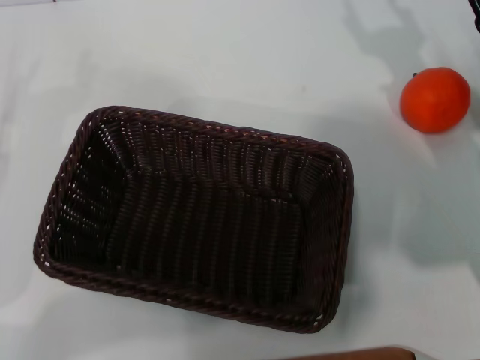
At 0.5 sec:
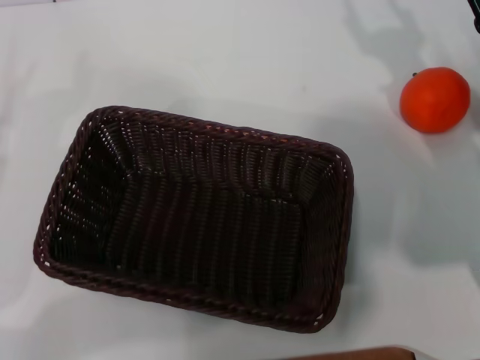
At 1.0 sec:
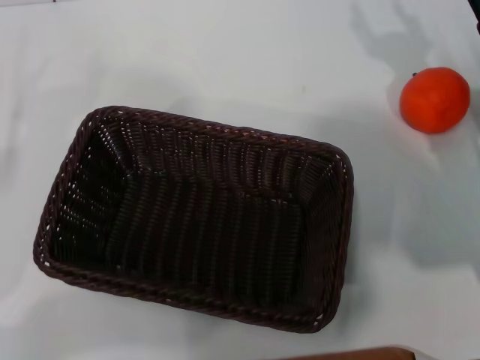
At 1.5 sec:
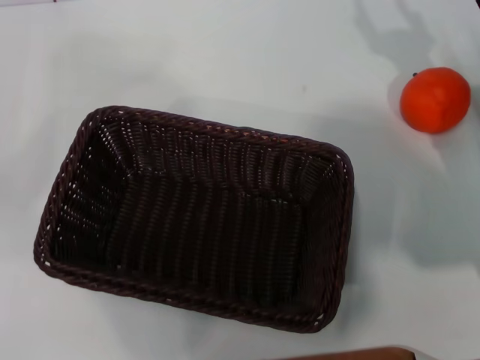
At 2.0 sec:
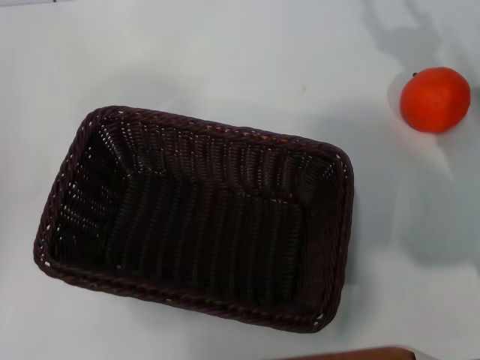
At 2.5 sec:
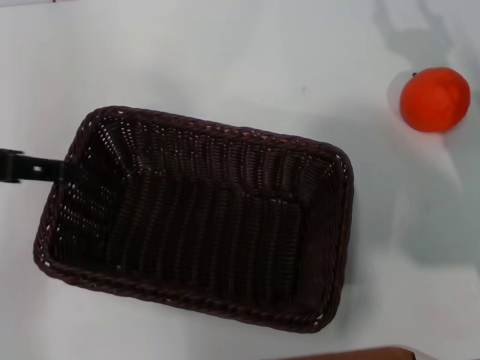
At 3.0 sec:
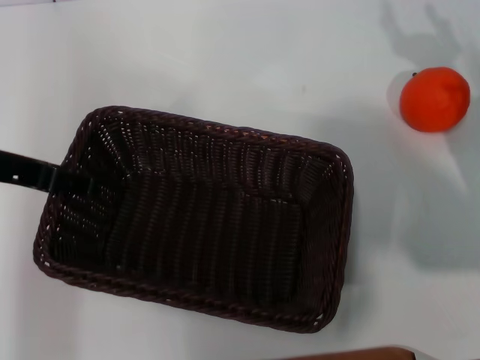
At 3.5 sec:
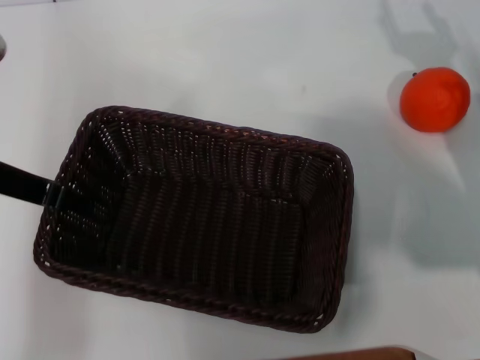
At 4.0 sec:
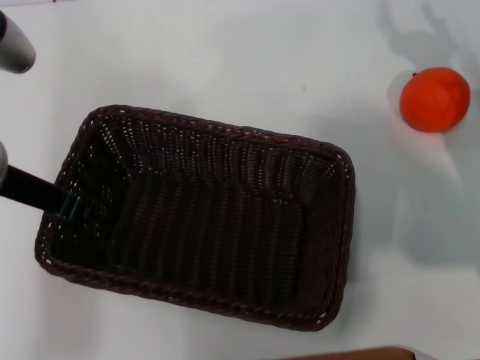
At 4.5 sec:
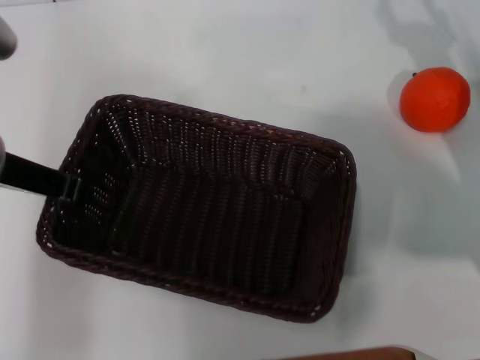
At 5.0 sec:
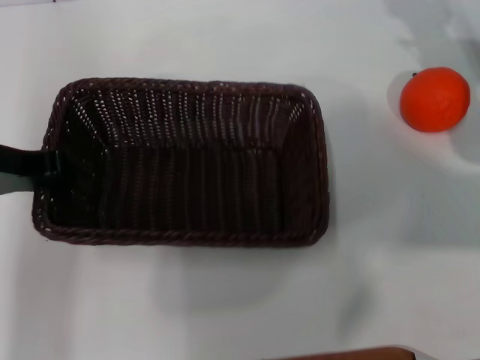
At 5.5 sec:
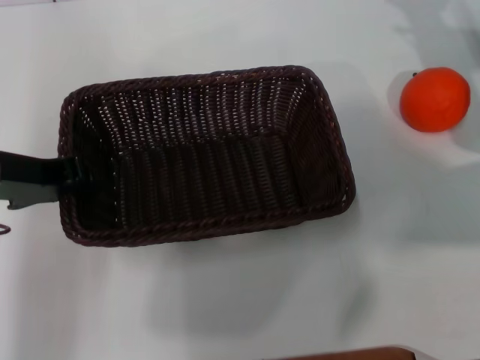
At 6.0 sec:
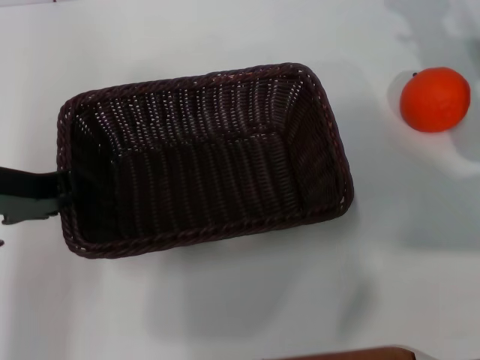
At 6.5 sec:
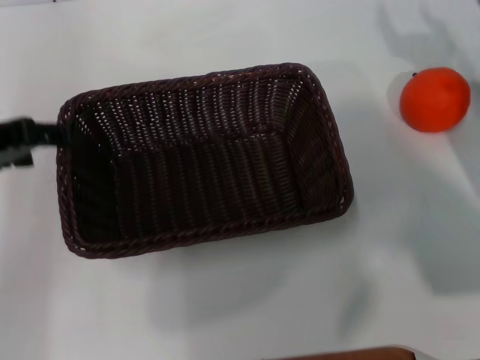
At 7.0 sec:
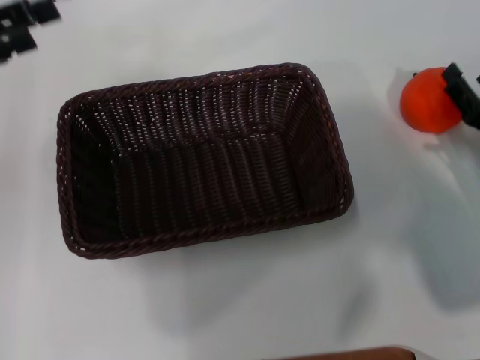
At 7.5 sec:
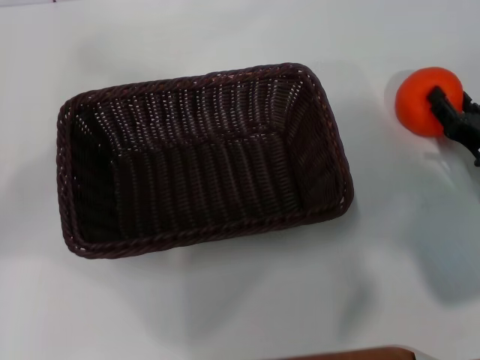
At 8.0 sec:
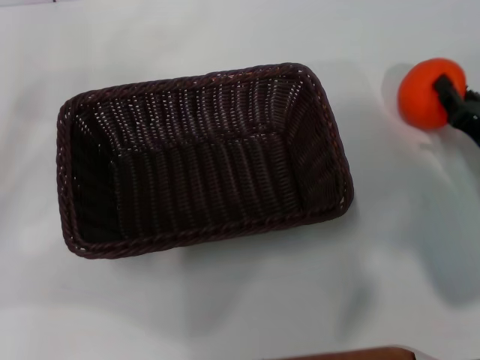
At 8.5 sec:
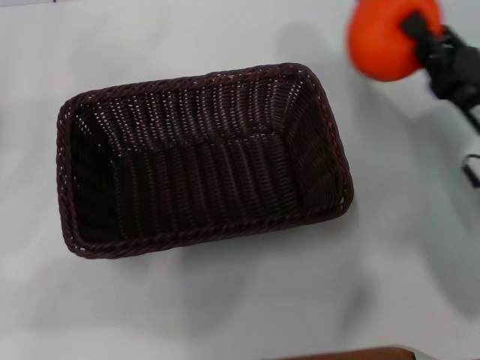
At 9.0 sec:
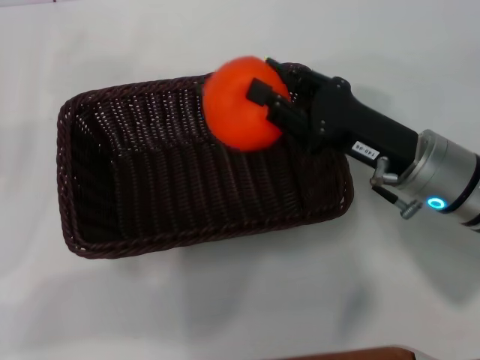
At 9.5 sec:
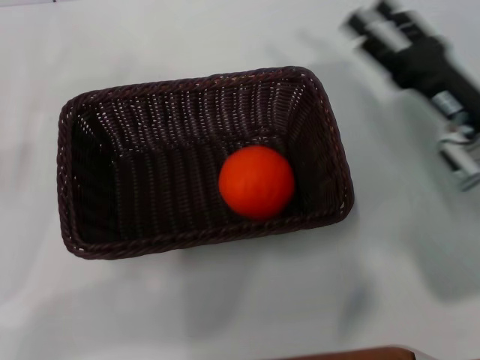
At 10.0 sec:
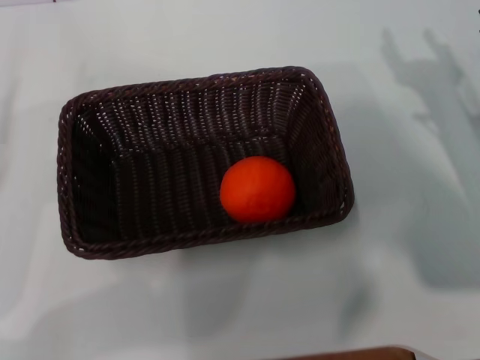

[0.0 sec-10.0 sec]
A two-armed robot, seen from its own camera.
Task of the whole recording: the left gripper pick up the black basket and place it horizontally in the middle of the table, the right gripper pick up the orange and place it into the black basket.
Step, 0.0 sec to 4.5 sec: Pick up the dark basket with the left gripper.
Step, 5.0 sec to 6.5 sec: Place the dark basket in the center of view with the left gripper.
Step, 7.0 sec to 8.0 sec: Pick up the orange with the right gripper.
Step, 8.5 sec to 9.0 sec: Place the orange into the dark basket with the right gripper.
0.0 sec to 2.0 sec: The left gripper goes roughly 20 cm upward.
2.0 sec to 4.0 sec: The left gripper is displaced to the right and downward by roughly 15 cm, and closes up.
4.0 sec to 6.0 sec: The left gripper closes, while the right gripper heads forward, covering approximately 5 cm.
6.0 sec to 8.0 sec: The left gripper is displaced to the left by about 15 cm, and opens up. The right gripper moves backward and downward, approximately 10 cm, and closes up.
8.0 sec to 10.0 sec: The left gripper goes roughly 10 cm downward. Meanwhile the right gripper reaches roughly 10 cm to the left, then returns, and opens.
